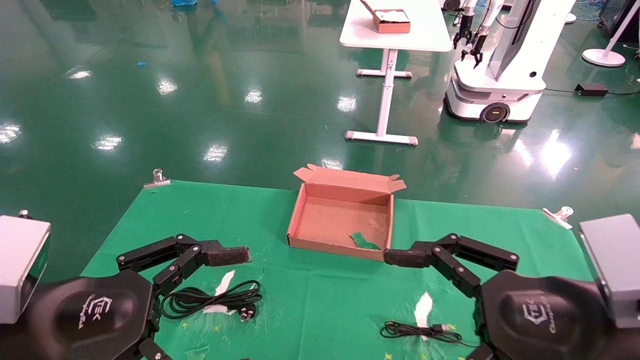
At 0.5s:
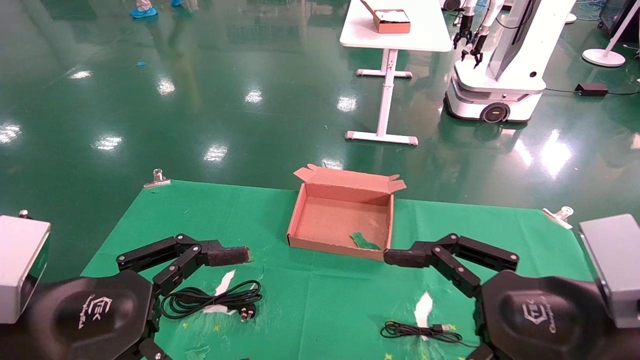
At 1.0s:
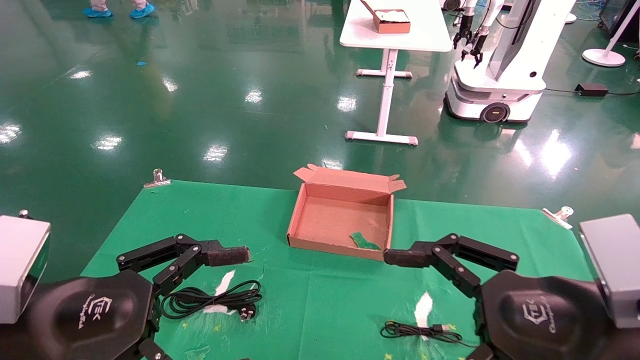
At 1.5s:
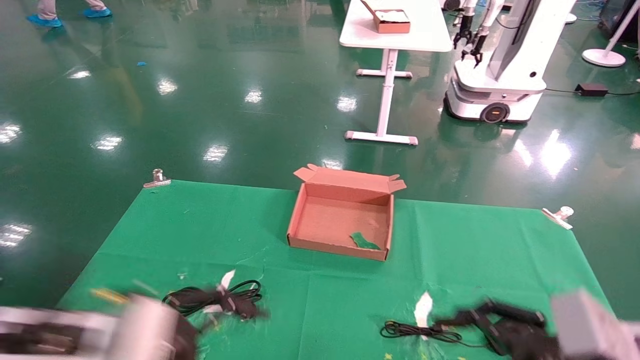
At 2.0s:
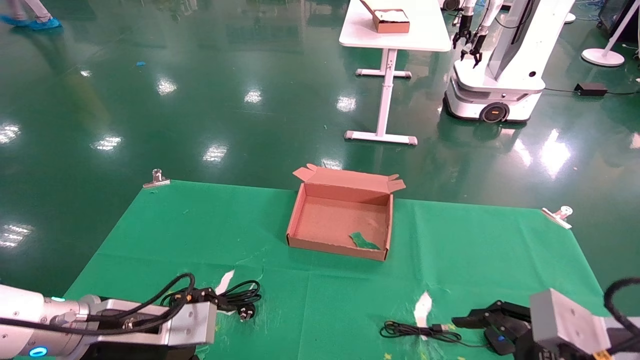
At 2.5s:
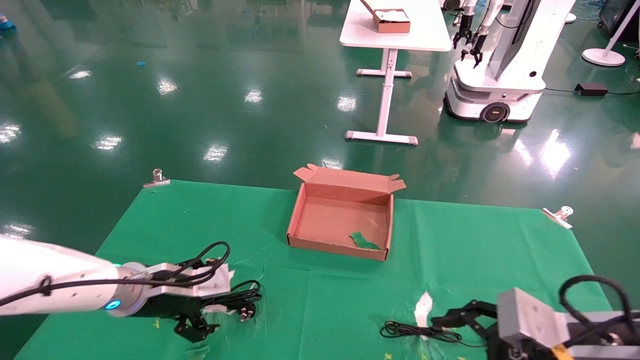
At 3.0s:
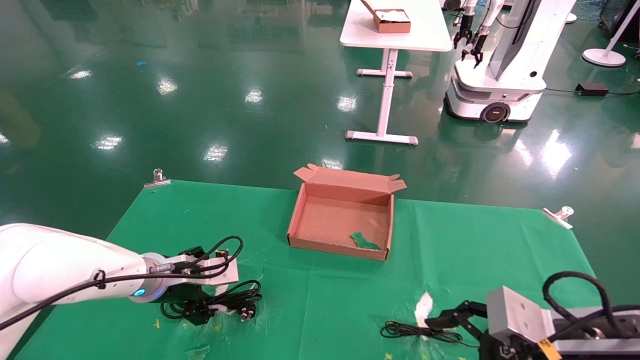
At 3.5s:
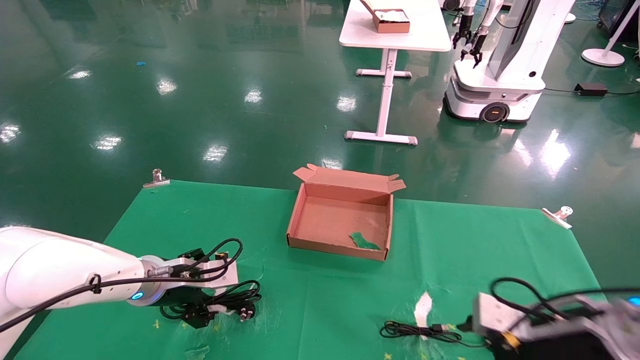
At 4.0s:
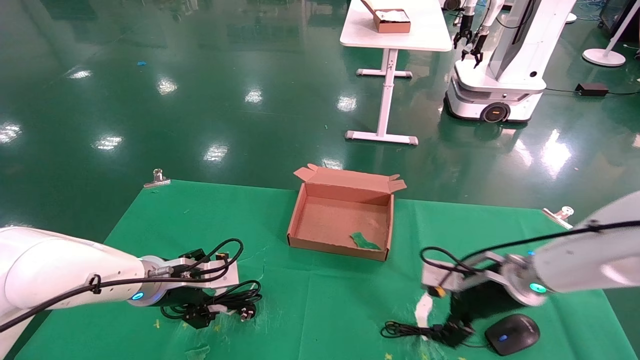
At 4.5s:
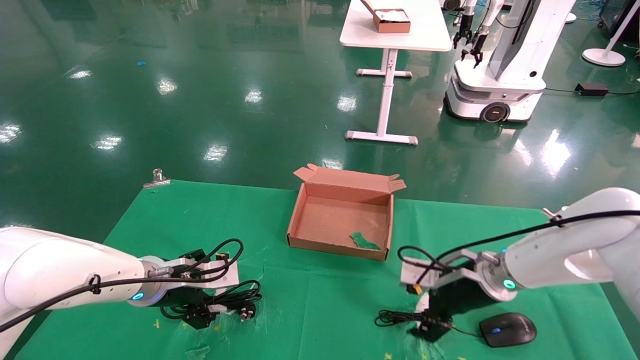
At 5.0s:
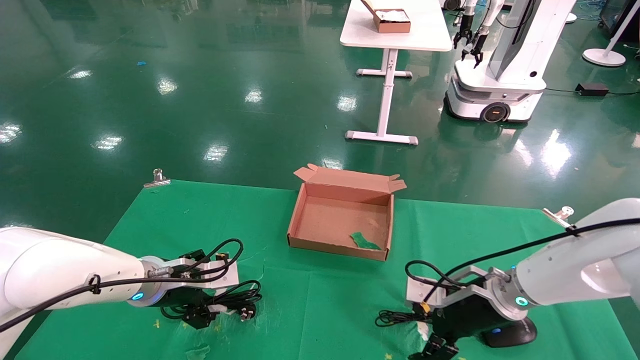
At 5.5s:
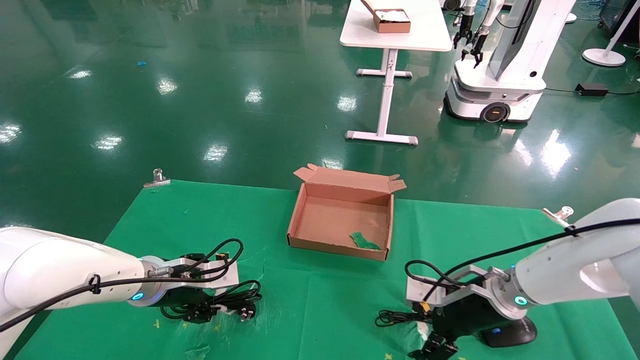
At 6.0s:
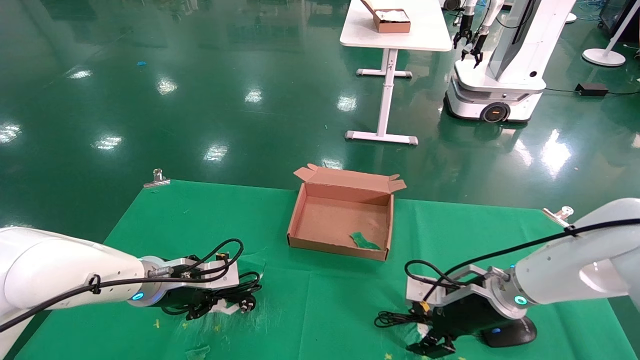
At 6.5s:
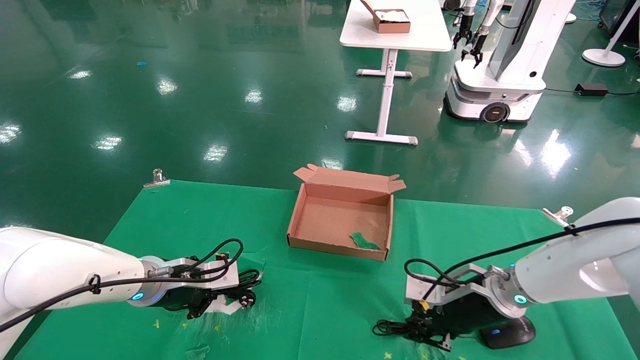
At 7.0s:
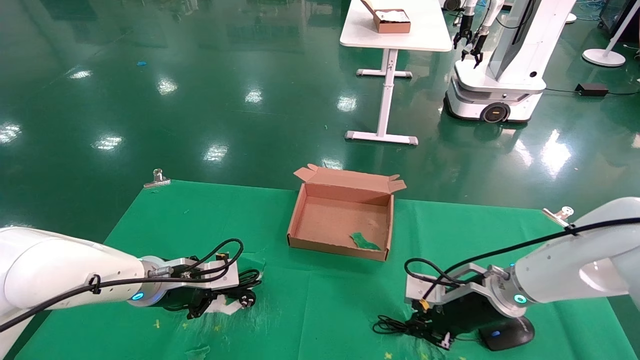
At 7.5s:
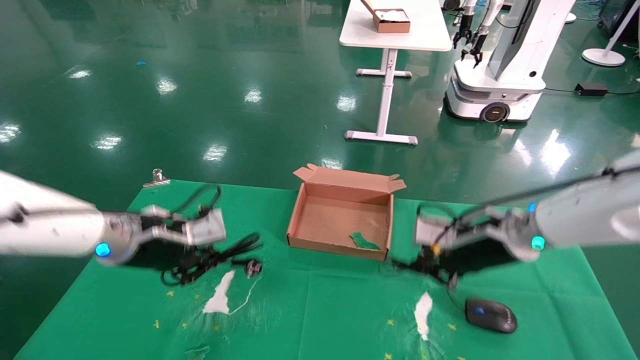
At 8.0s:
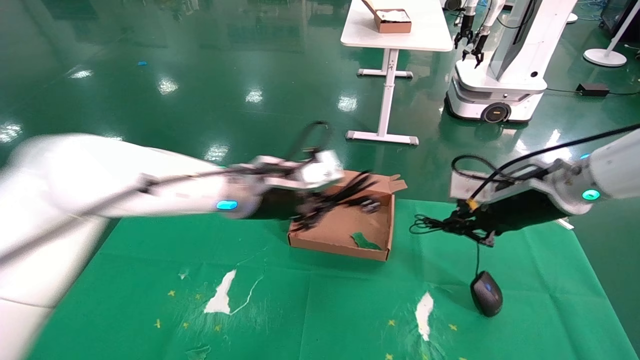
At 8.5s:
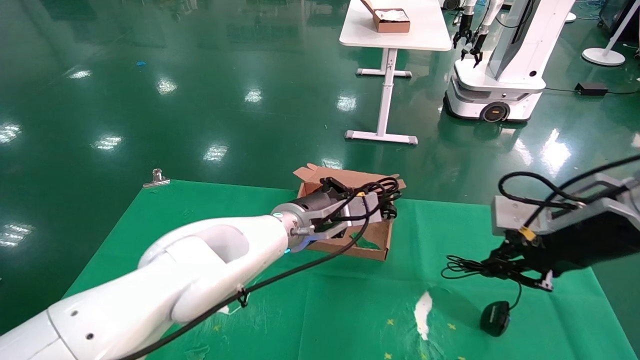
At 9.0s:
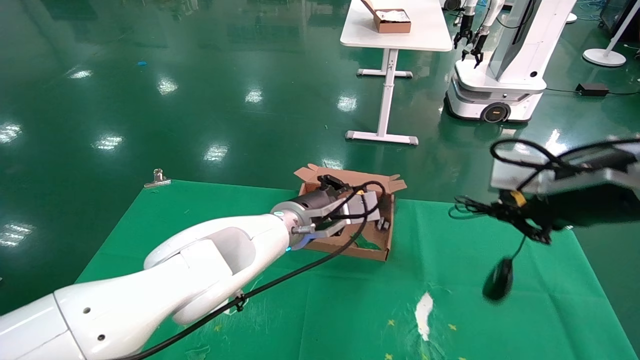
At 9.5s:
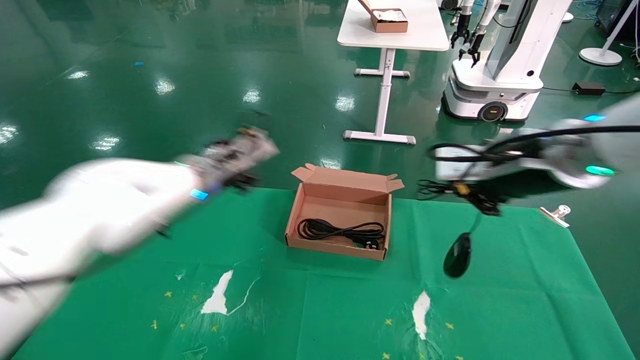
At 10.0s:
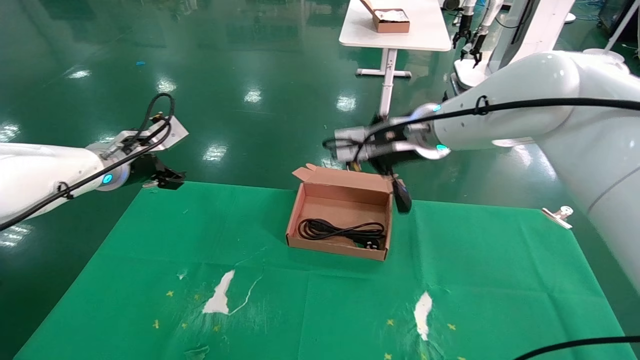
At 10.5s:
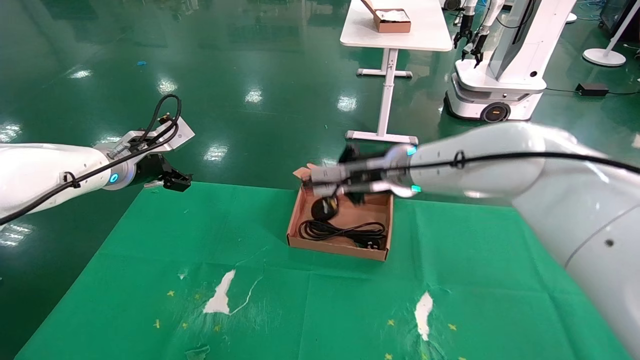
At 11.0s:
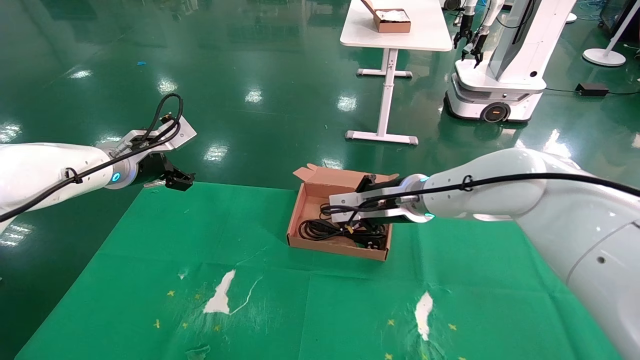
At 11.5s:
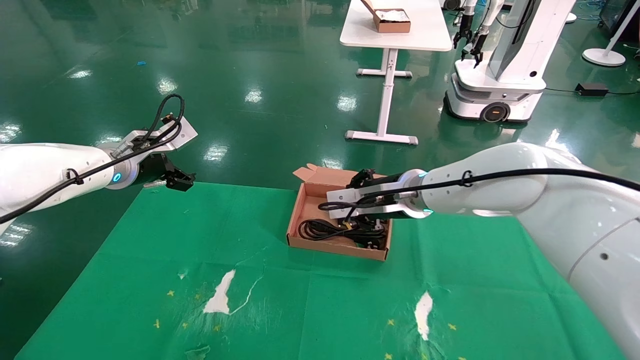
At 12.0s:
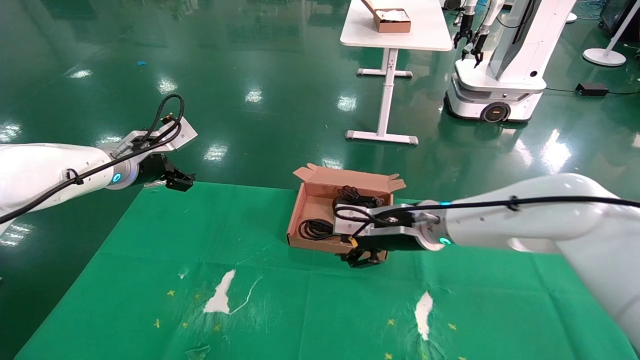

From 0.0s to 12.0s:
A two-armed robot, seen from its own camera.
Step, from 2.0s to 7.0s: Grab and lift both the mouse and power cord from the accessory packaging area at the same time.
From 0.0s to 2.0s: The left gripper shifts roughly 15 cm forward and downward, while the right gripper shifts some 10 cm downward and to the right.
From 2.0s to 4.0s: The left gripper is displaced forward by approximately 10 cm, while the right gripper shifts roughly 20 cm forward.
From 4.0s to 6.0s: The left gripper closes up.
From 6.0s to 8.0s: The left gripper moves to the right and upward, approximately 20 cm. The right gripper moves upward, some 15 cm, and closes.
From 8.0s to 10.0s: The left gripper goes about 20 cm to the left, and opens its fingers. The right gripper goes about 20 cm to the left and upward.
From 10.0s to 12.0s: The right gripper moves downward, approximately 15 cm, and opens up.

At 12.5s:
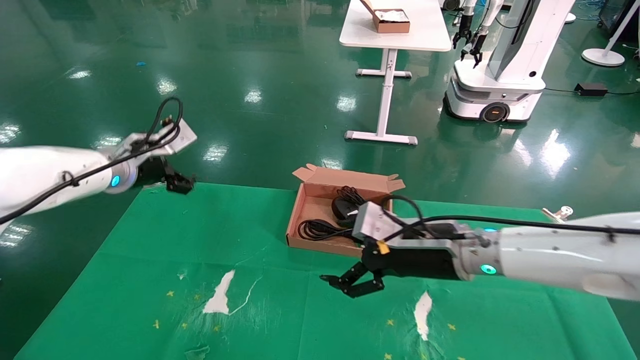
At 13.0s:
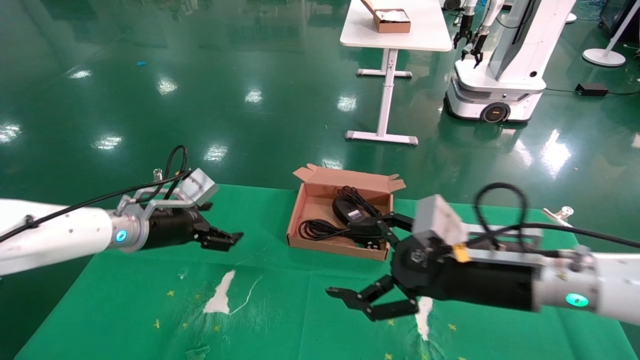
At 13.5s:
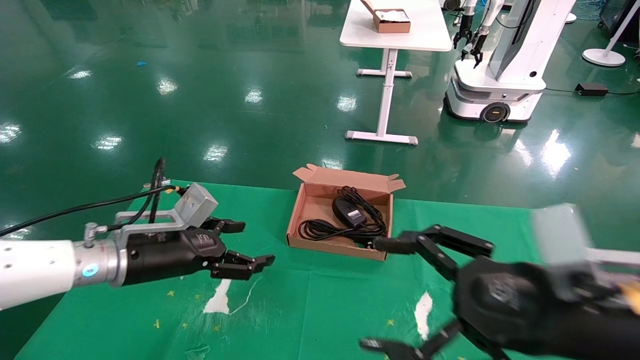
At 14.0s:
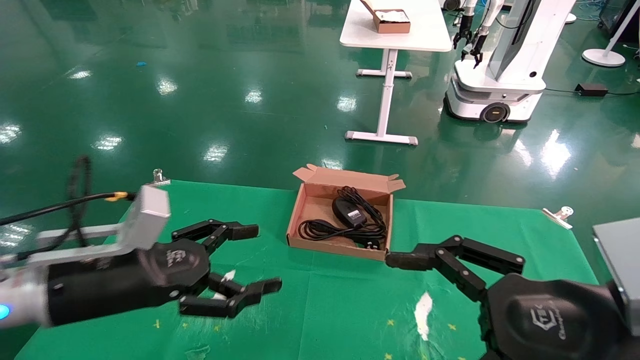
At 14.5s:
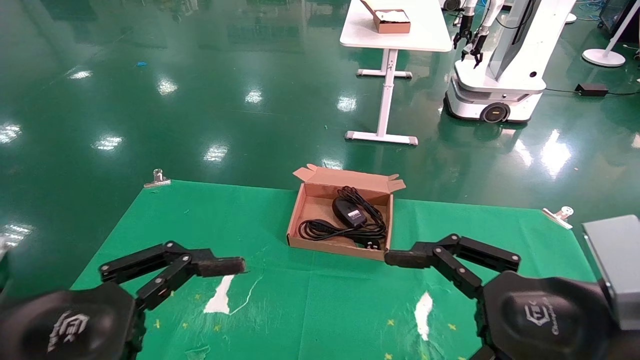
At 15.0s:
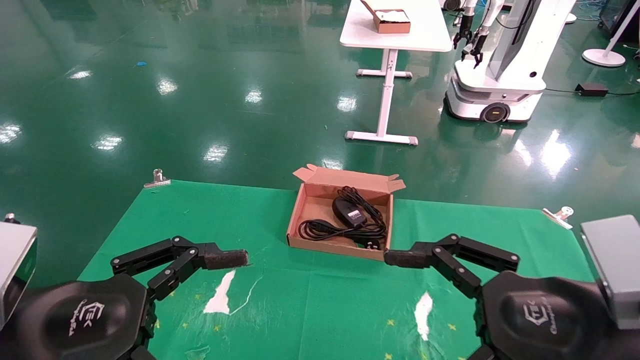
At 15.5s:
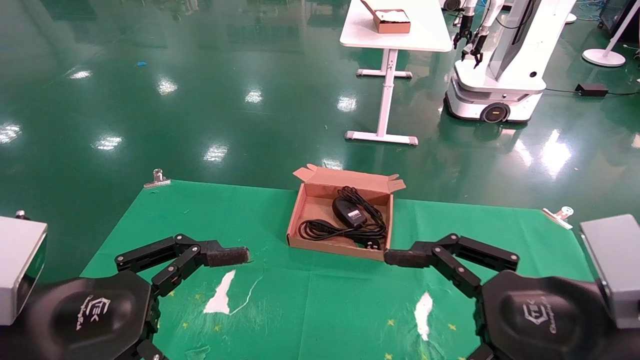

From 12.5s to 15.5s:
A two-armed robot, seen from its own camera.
From 12.5s to 14.0s: The right gripper goes some 20 cm backward and to the right. Meanwhile the left gripper travels backward by some 20 cm.
From 14.0s to 15.5s: The left gripper heads backward, covering some 10 cm.
